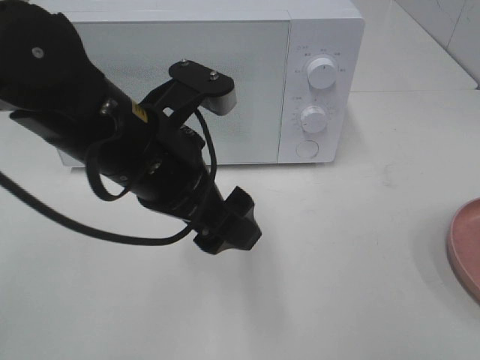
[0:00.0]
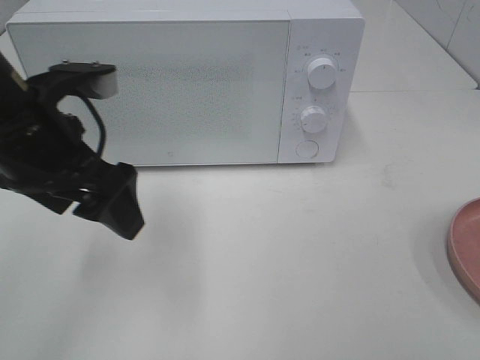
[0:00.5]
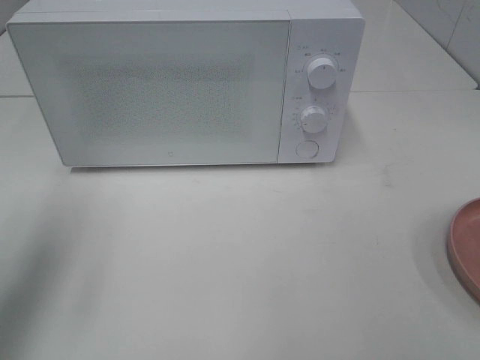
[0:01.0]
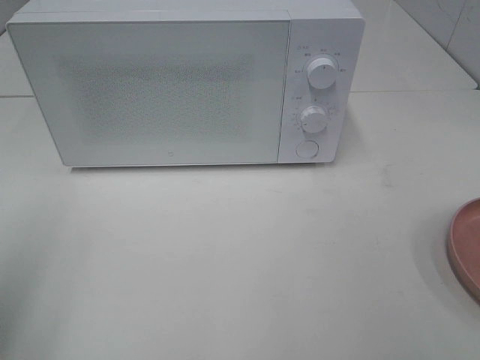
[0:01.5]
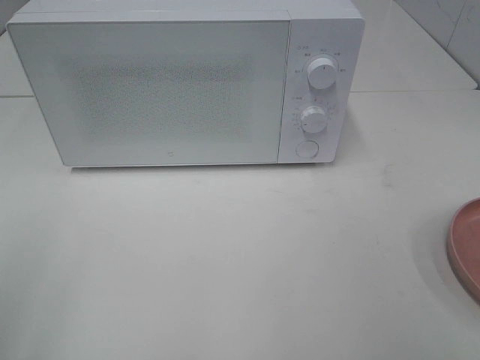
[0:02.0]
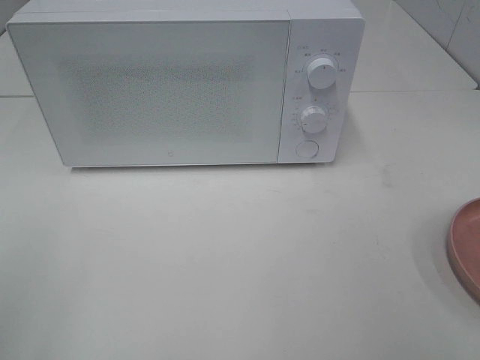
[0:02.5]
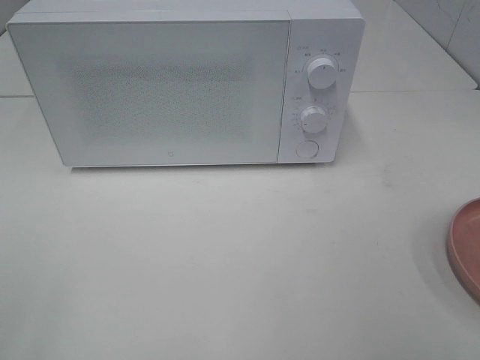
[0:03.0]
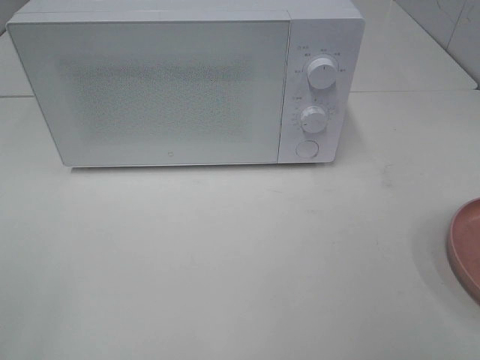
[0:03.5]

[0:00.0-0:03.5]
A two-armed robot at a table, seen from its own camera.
Task of the whole recording: Heat the burger.
0:00.0 to 0:02.0: The left gripper shifts approximately 30 cm to the left and backward.

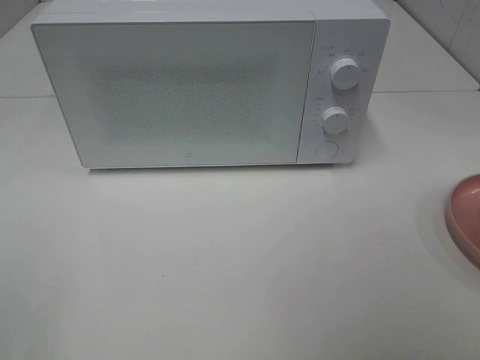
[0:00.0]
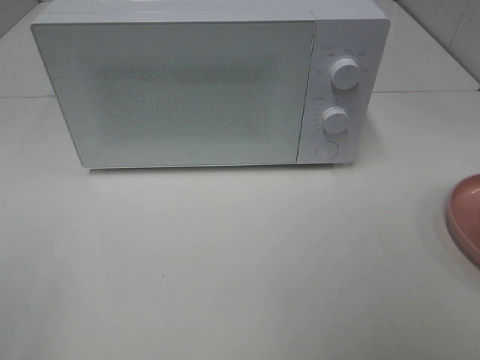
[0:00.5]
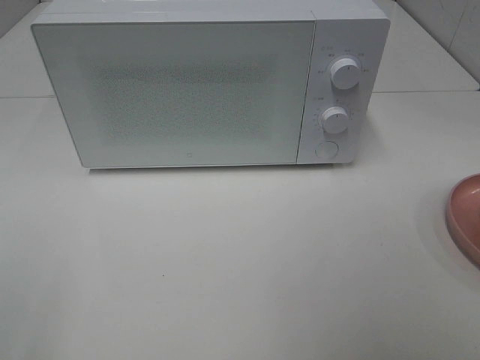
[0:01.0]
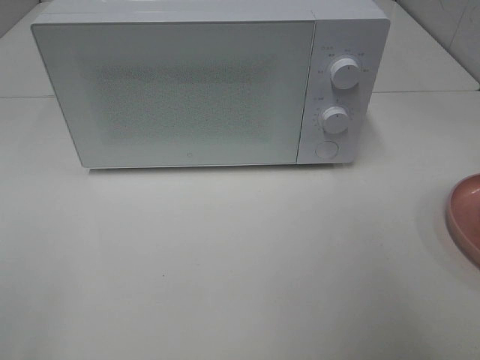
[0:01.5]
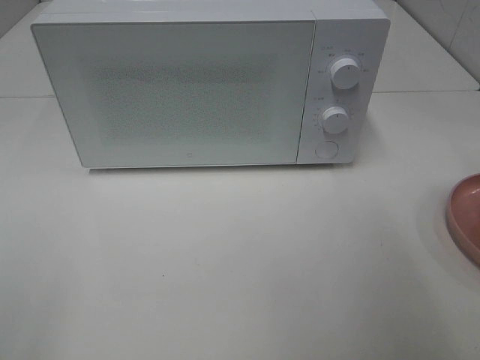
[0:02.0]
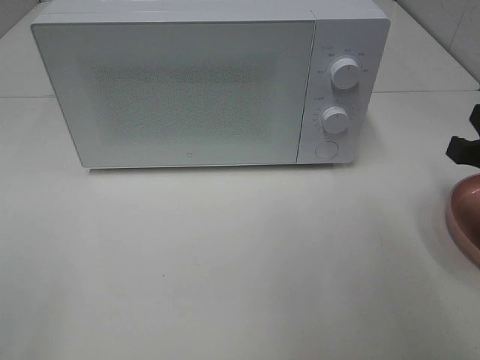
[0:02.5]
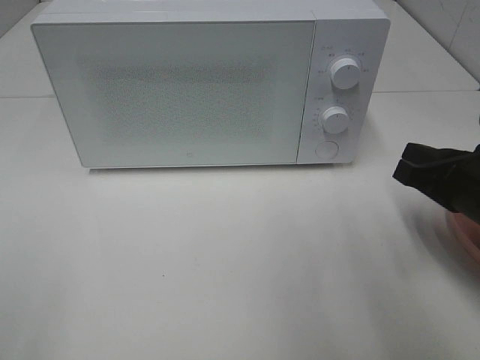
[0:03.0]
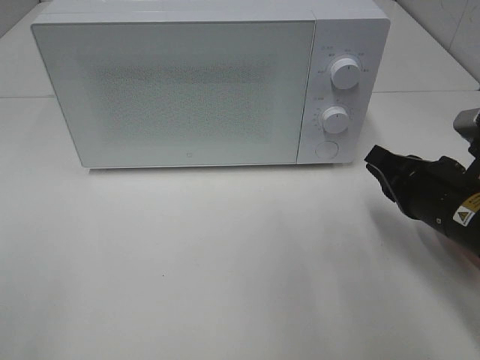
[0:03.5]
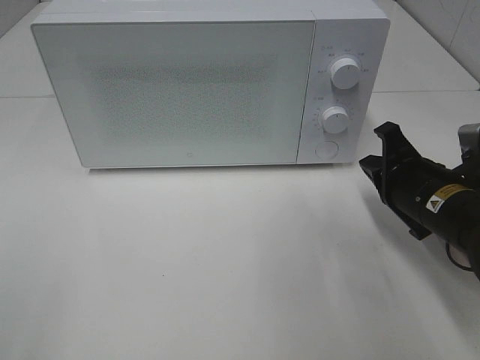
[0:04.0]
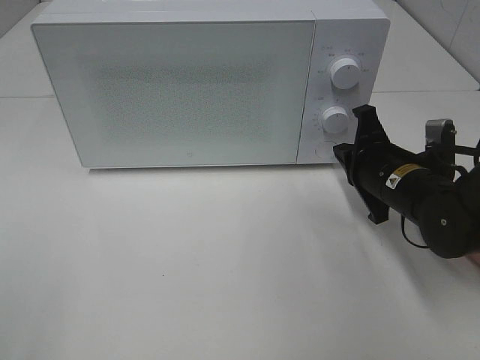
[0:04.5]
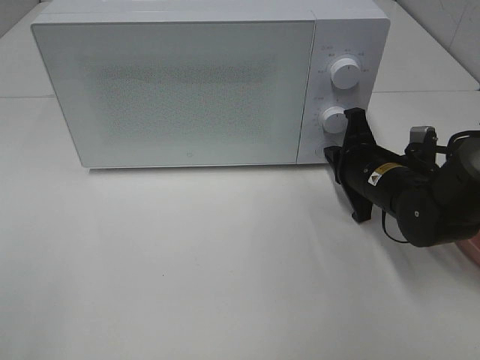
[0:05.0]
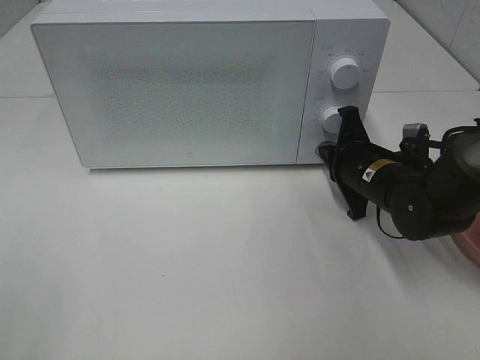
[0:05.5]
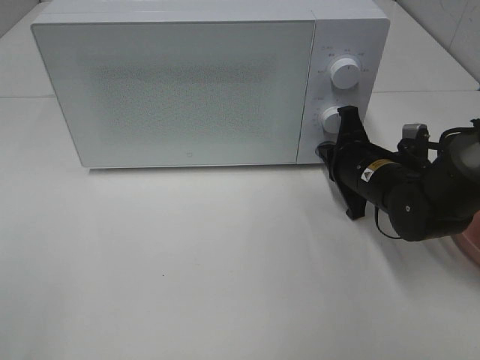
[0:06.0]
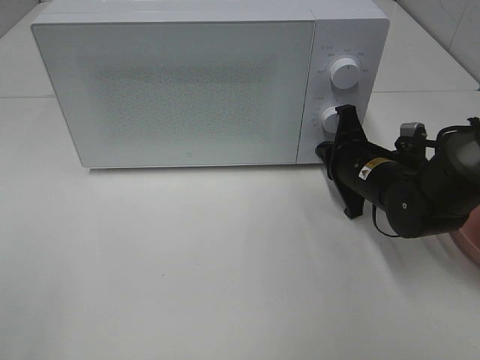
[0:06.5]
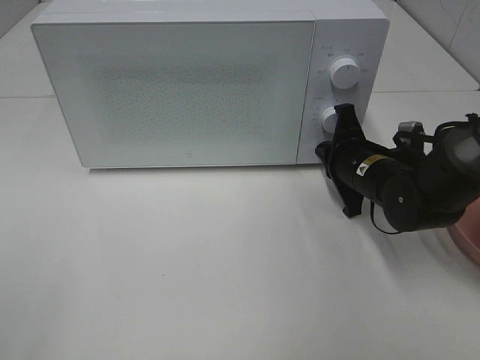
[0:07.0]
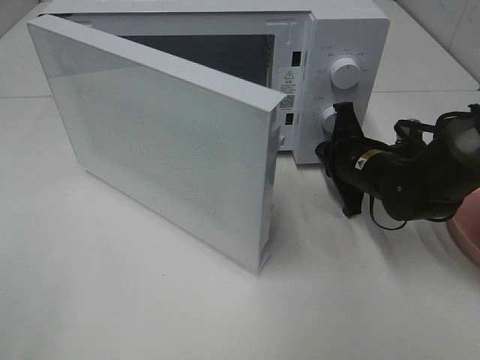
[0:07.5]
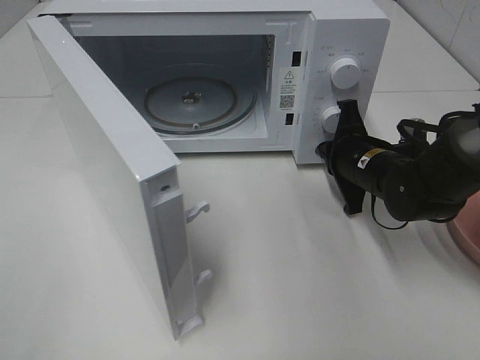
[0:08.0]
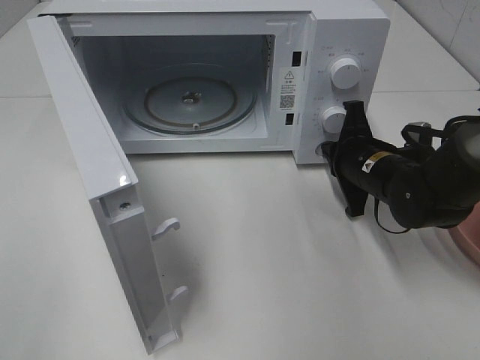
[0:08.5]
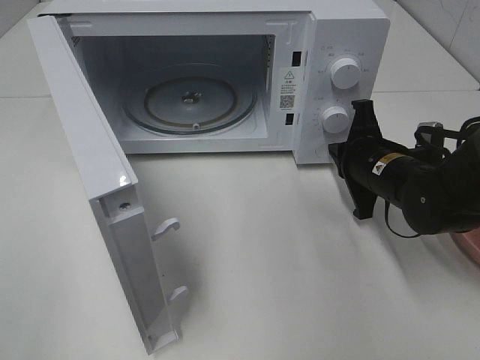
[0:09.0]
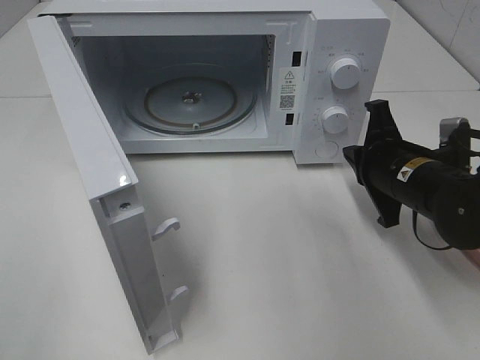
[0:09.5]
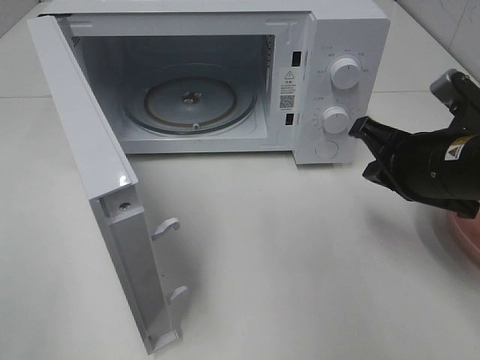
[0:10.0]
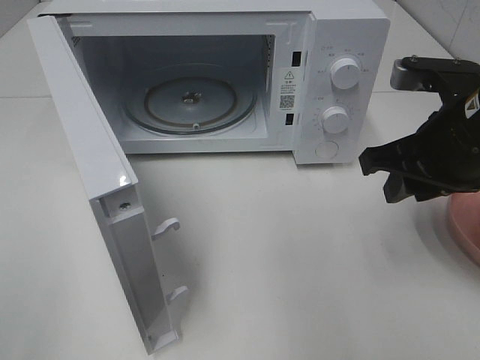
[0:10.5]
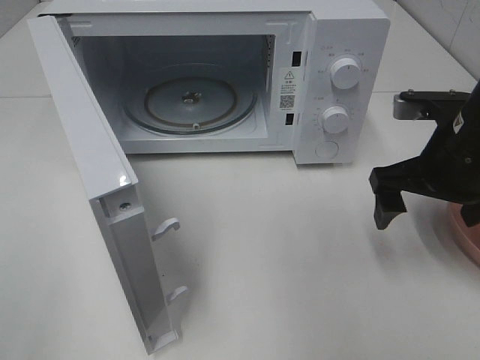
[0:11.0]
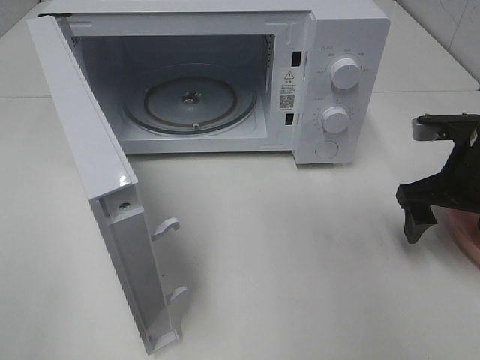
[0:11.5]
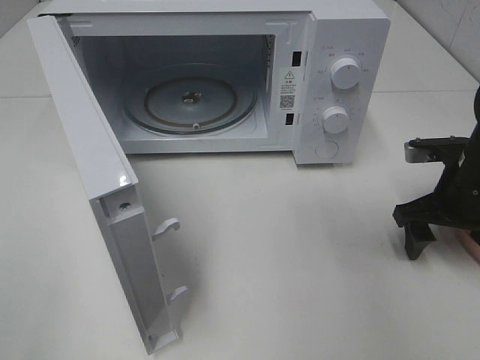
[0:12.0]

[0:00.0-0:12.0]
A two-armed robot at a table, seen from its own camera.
Task of the whole recording: Heat the burger.
Step, 0:00.0 to 0:09.0: Right hand: press the switch.
0:02.0 to 0:04.0: The right gripper shifts approximately 20 cm downward, to the left and forward.
0:04.0 to 0:06.0: The right gripper travels forward by approximately 5 cm.
0:08.0 to 0:10.0: The right gripper heads backward and upward, covering some 15 cm.
0:10.0 to 0:12.0: The right gripper moves to the right, downward and forward, roughly 10 cm, and opens up.

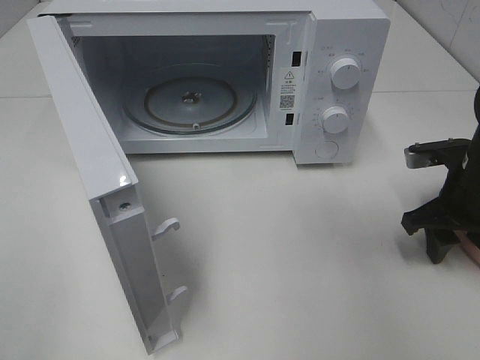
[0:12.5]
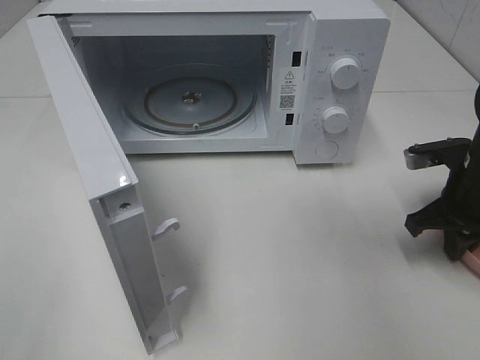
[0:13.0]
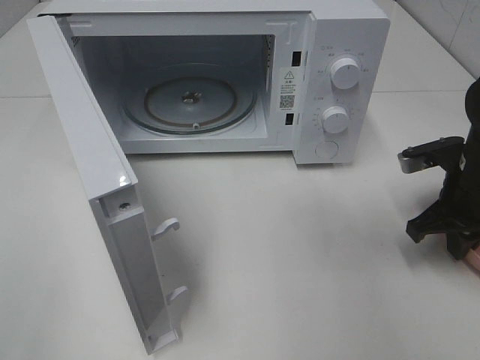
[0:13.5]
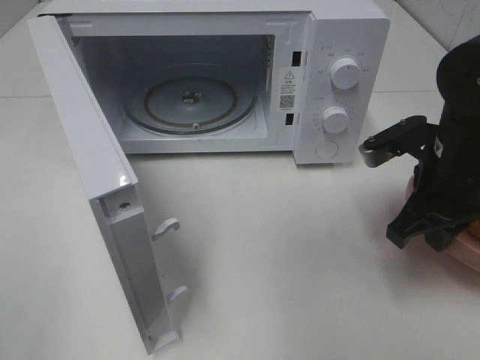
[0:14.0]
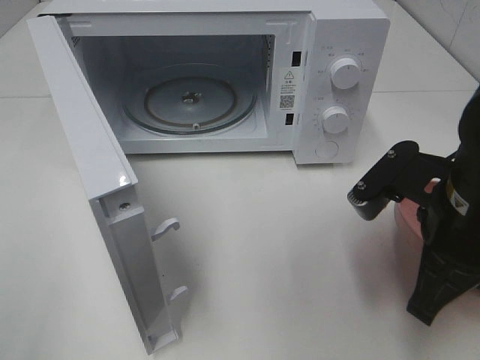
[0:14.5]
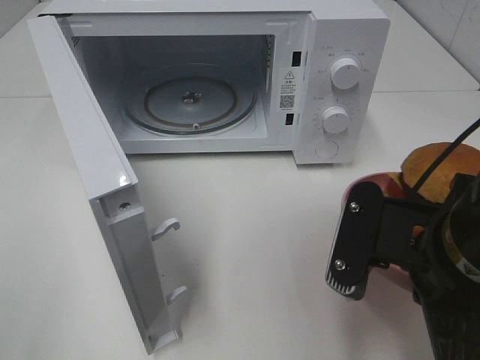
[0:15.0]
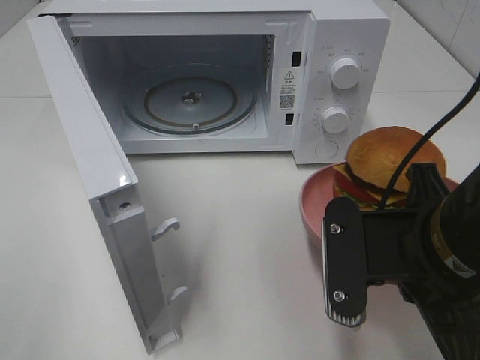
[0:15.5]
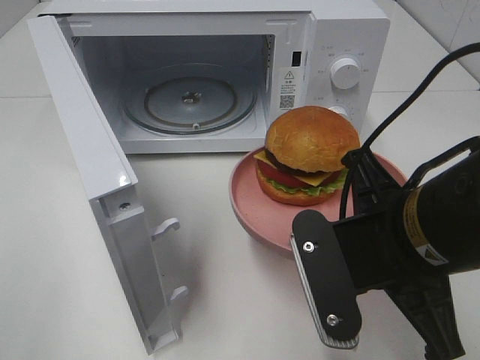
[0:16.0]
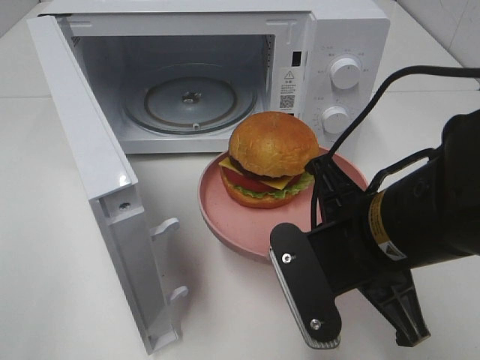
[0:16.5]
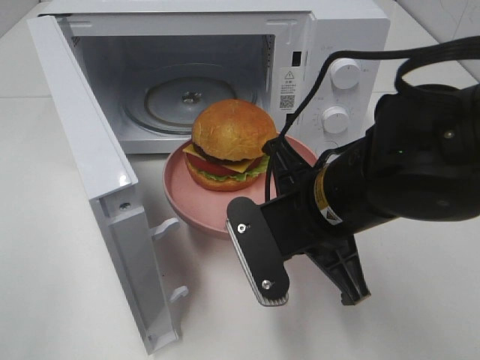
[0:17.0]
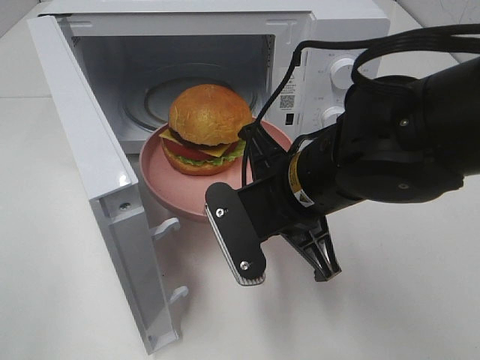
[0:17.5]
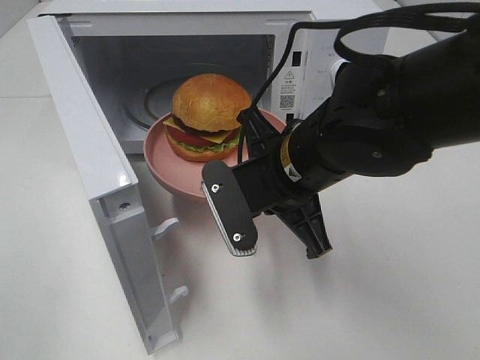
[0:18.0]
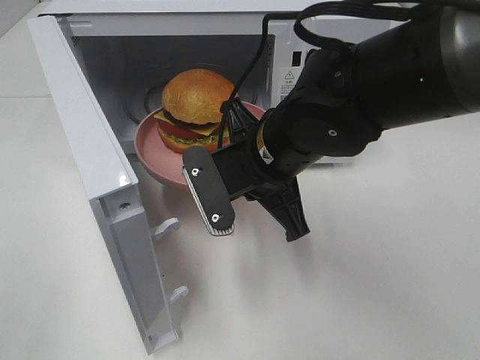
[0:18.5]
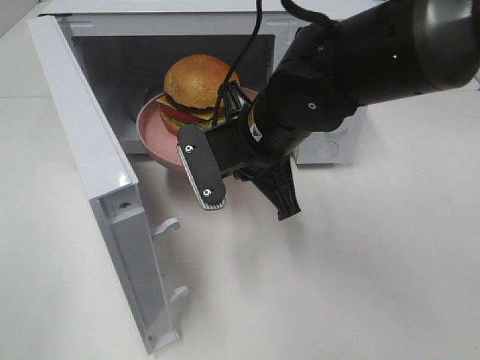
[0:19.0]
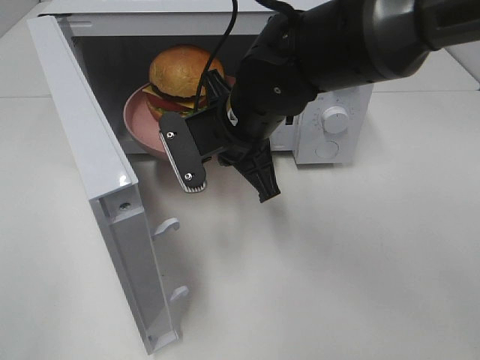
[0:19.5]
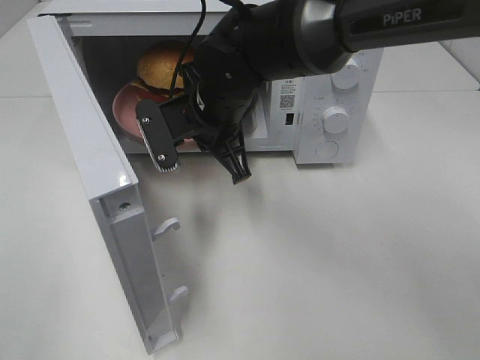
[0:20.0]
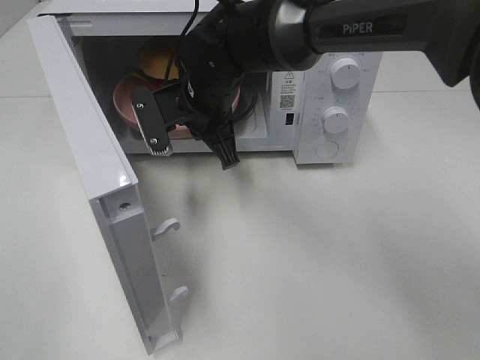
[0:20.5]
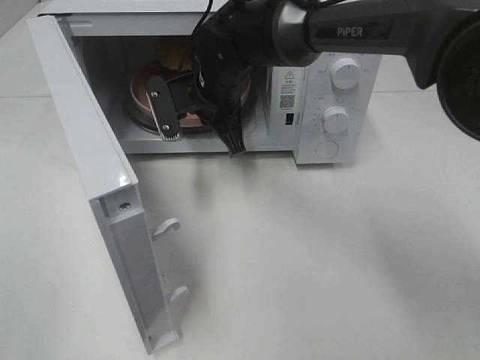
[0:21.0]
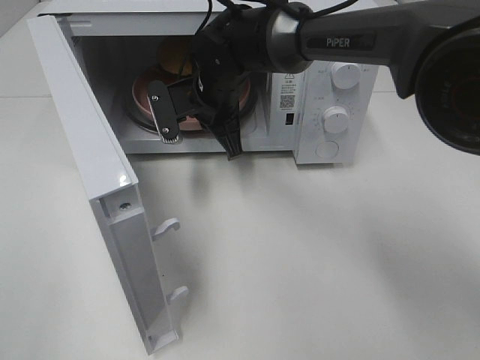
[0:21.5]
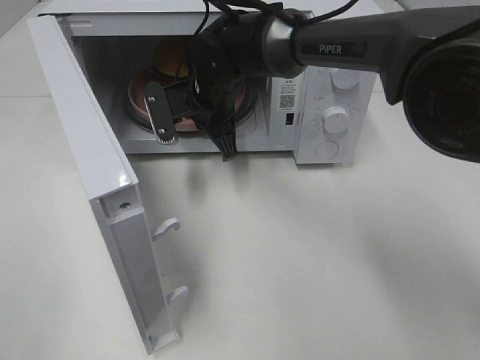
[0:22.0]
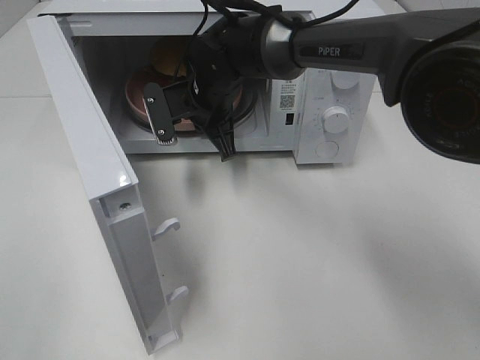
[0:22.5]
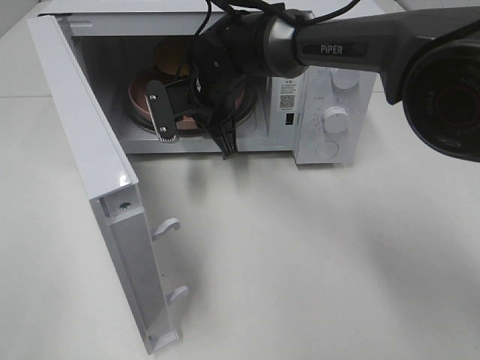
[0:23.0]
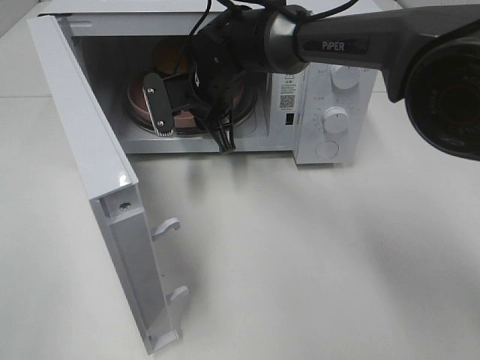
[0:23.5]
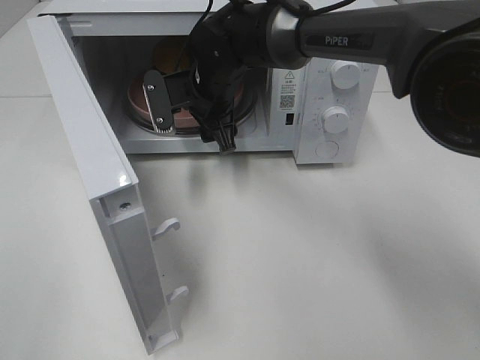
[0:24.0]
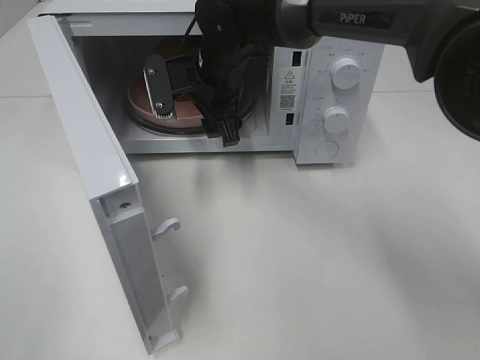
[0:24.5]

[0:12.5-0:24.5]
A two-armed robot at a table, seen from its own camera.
Task of the whole recording: Heat the burger.
Step, 0:13.0 to 0:23.0: Right hand: place the plate in the microwave.
0:12.5 to 0:14.5: The right gripper goes roughly 15 cm backward, to the left and upward, and closes.
0:14.5 to 0:16.5: The right gripper travels to the left by about 5 cm.
0:16.5 to 0:18.5: The right gripper is displaced forward and to the left by some 10 cm.
0:18.5 to 0:20.5: The right gripper travels forward and to the left by about 15 cm.
0:20.5 to 0:22.5: The right gripper moves approximately 5 cm.
0:22.5 to 0:24.5: The right gripper opens its fingers.
